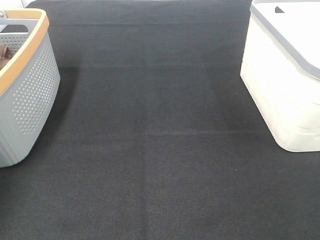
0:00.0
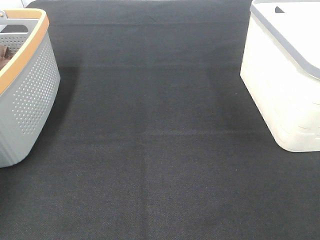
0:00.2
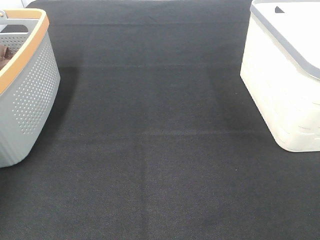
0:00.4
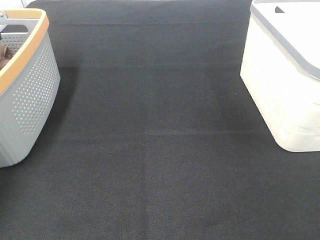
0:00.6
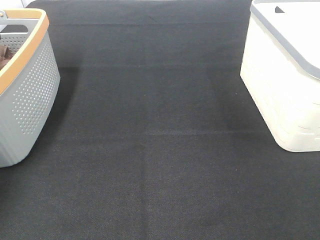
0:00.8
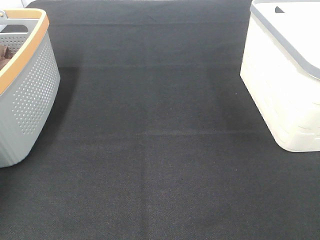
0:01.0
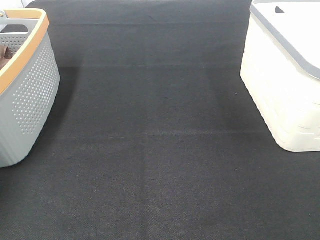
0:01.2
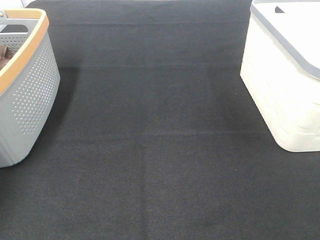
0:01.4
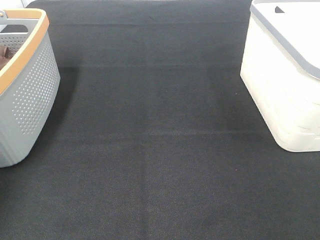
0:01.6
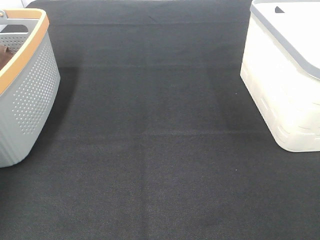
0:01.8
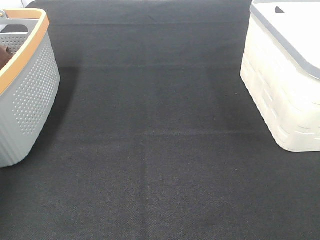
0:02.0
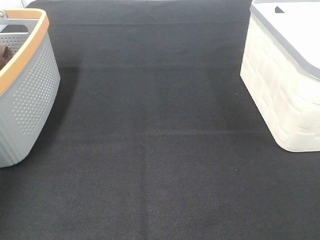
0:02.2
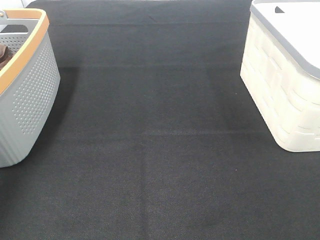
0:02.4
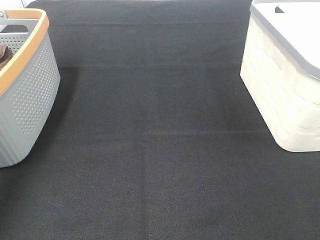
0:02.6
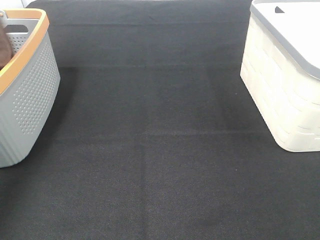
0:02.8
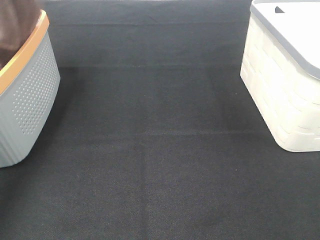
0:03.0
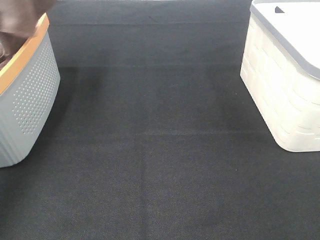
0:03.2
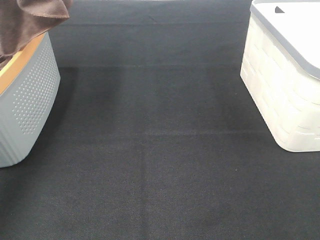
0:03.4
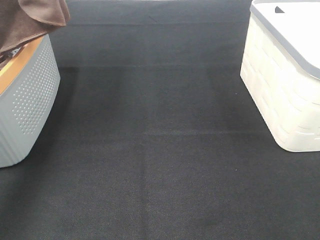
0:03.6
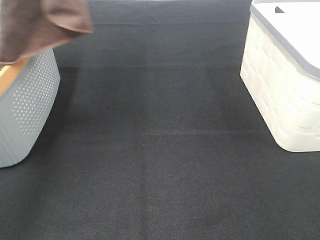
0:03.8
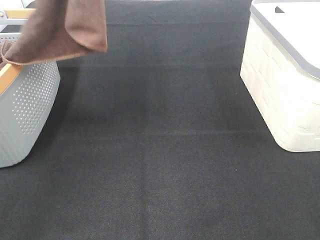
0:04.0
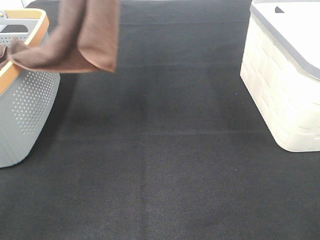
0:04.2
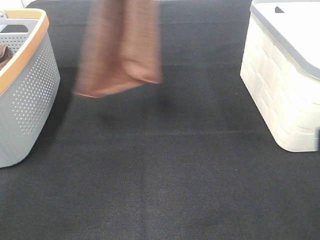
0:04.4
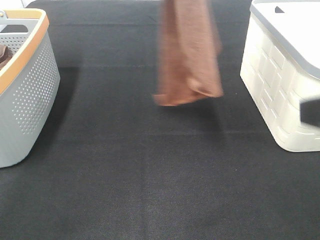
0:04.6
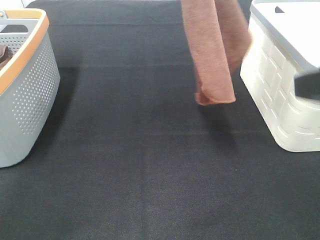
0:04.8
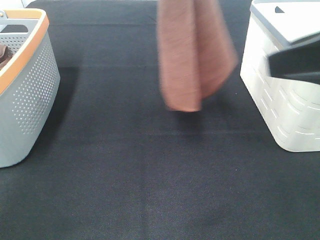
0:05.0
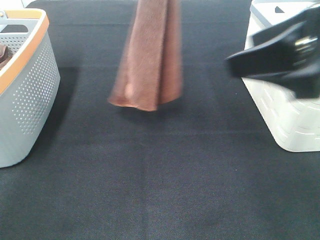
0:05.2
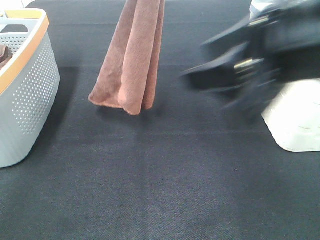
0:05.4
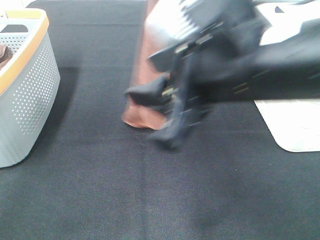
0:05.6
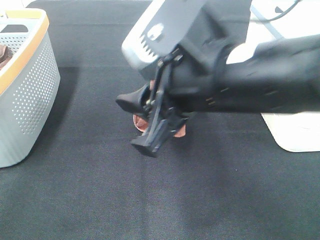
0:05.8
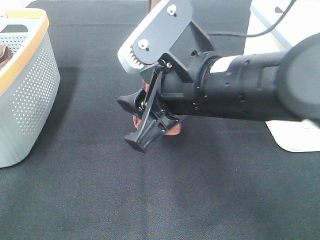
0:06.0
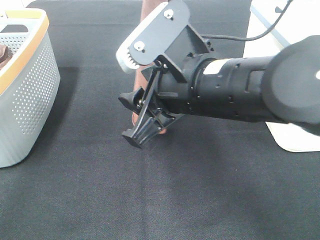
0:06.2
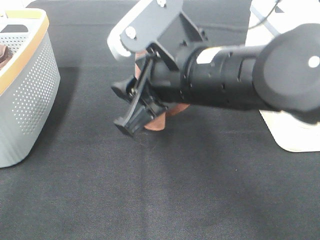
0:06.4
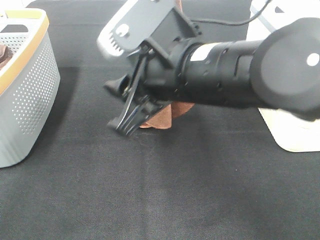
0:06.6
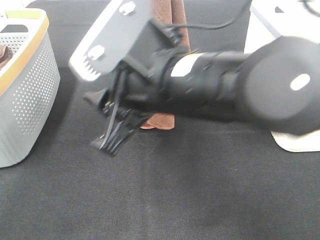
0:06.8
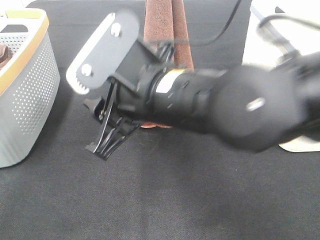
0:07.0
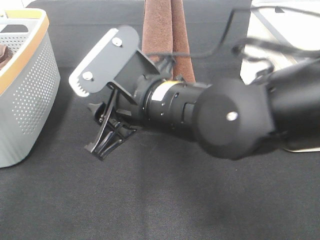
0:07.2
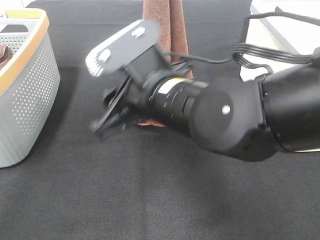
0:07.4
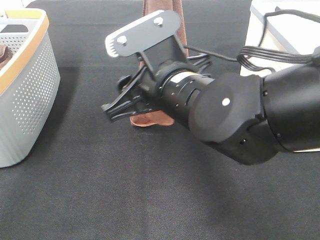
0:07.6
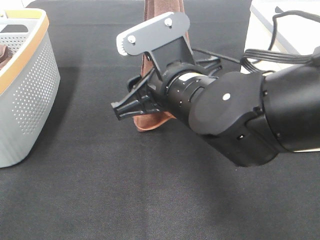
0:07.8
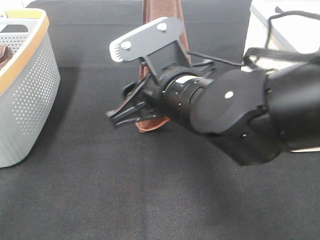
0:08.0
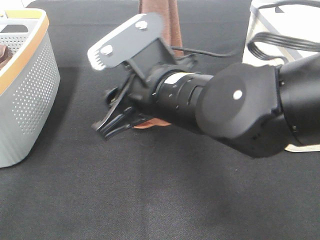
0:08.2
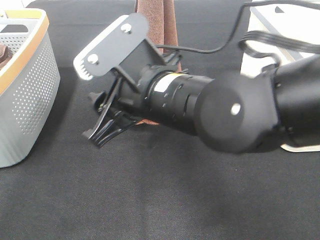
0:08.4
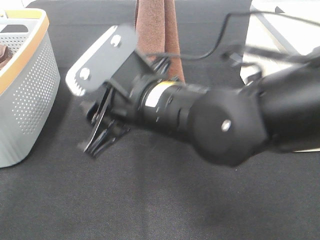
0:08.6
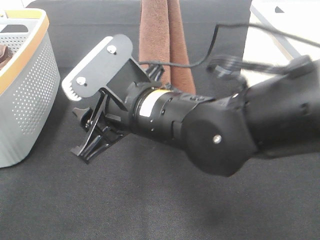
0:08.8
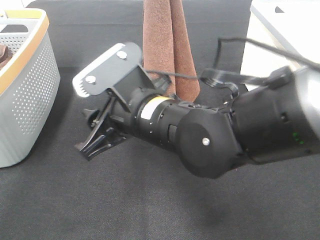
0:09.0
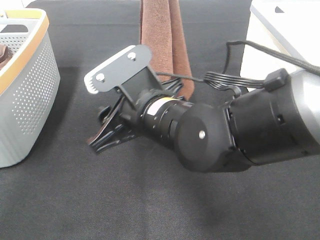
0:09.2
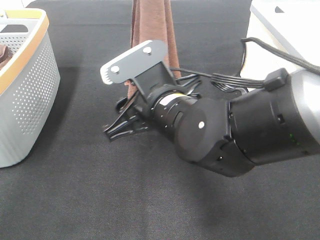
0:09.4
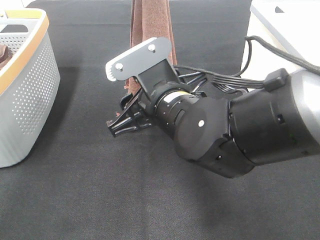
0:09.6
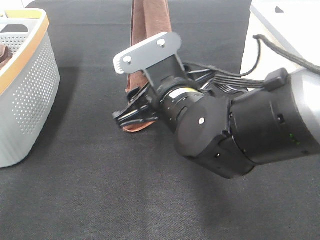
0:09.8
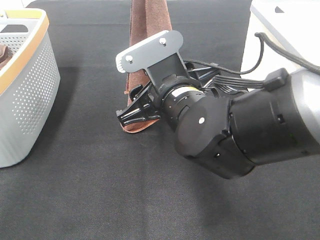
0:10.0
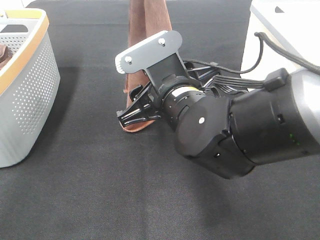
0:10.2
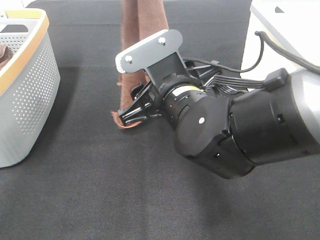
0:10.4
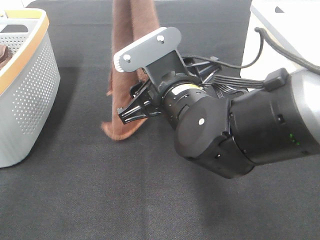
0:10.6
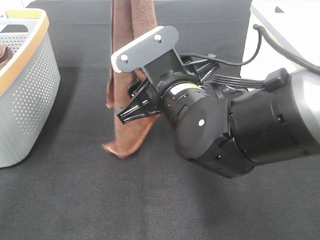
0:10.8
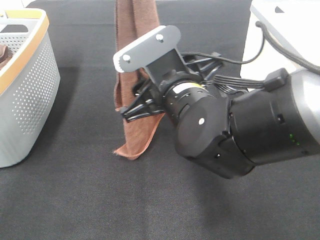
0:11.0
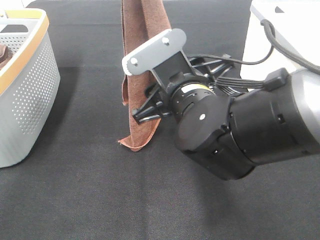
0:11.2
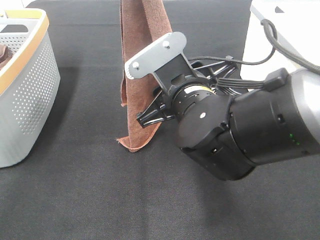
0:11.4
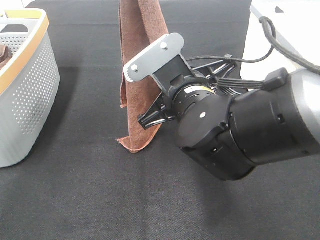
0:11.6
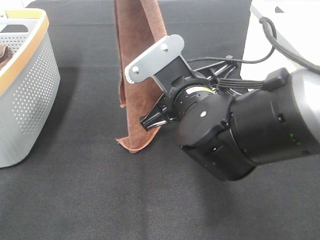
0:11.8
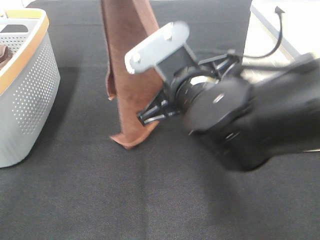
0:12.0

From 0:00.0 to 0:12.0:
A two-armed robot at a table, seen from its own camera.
Task of the whole recording: Remove the towel and place it.
From 0:01.6 to 0:03.0: The left gripper is displaced upward and backward by some 30 cm.
From 0:03.0 to 0:04.4: The right gripper travels forward by approximately 10 cm. Meanwhile the left gripper goes some 25 cm to the right.
From 0:04.4 to 0:06.0: The left gripper moves approximately 5 cm. Meanwhile the right gripper is displaced to the left and forward by some 20 cm.
From 0:10.4 to 0:12.0: The right gripper closes its fingers.

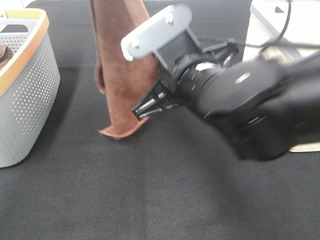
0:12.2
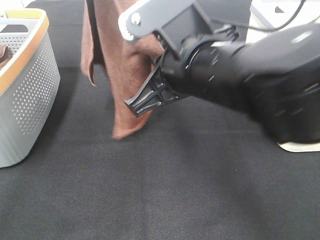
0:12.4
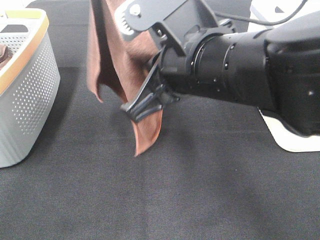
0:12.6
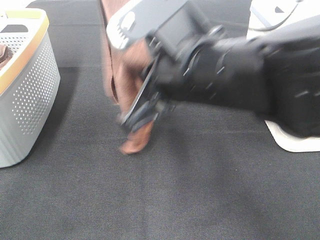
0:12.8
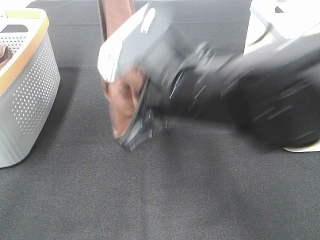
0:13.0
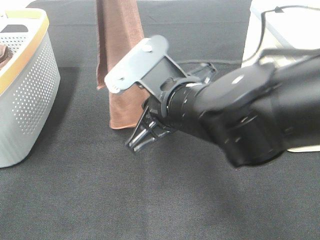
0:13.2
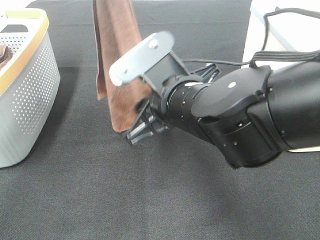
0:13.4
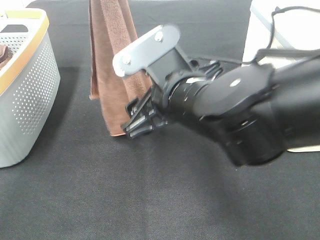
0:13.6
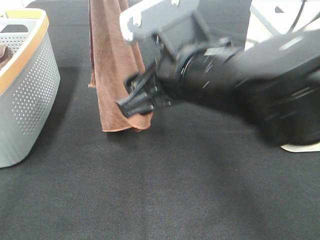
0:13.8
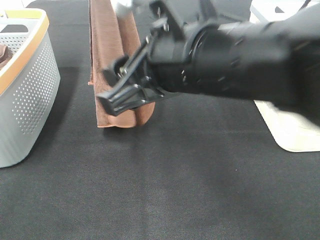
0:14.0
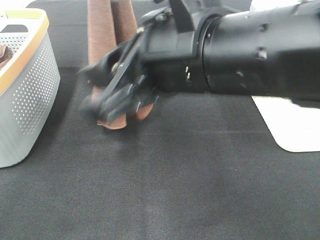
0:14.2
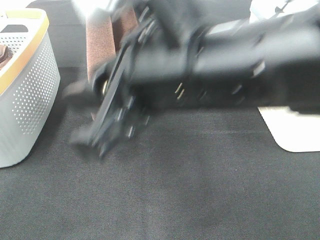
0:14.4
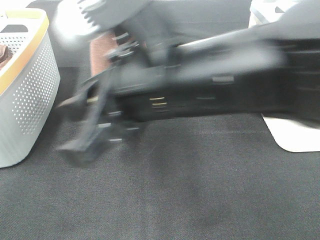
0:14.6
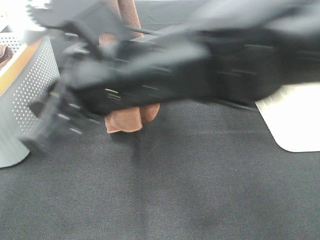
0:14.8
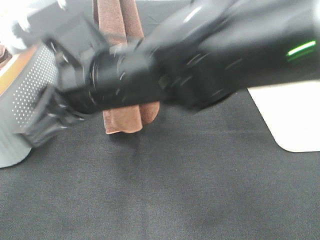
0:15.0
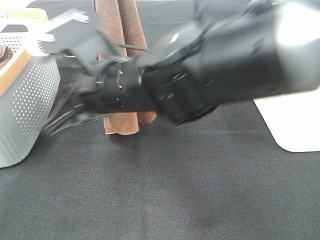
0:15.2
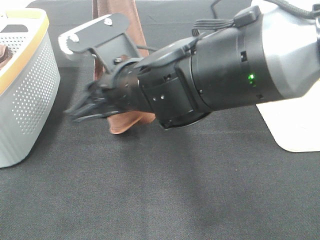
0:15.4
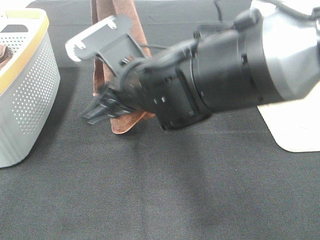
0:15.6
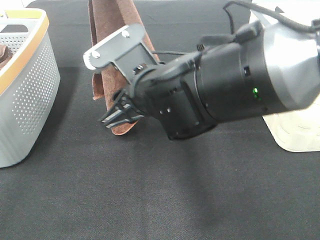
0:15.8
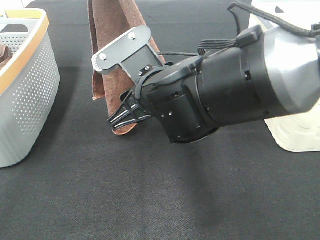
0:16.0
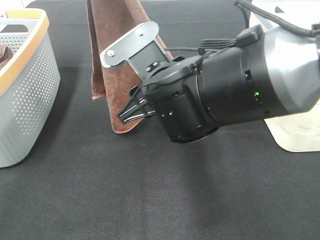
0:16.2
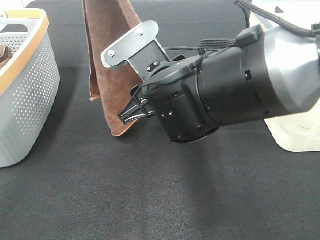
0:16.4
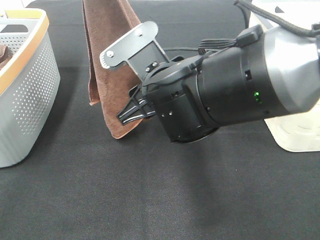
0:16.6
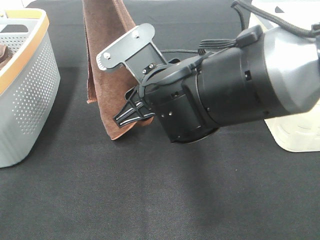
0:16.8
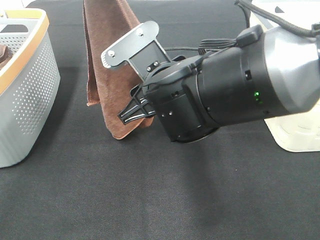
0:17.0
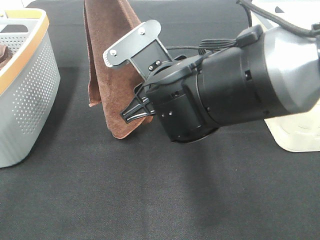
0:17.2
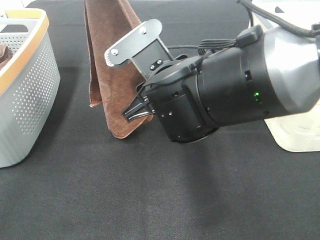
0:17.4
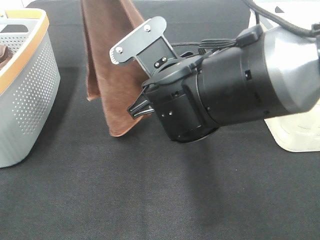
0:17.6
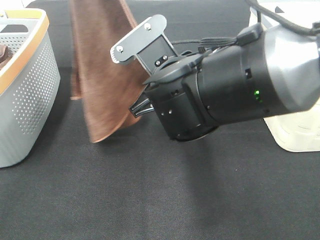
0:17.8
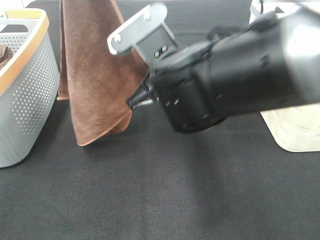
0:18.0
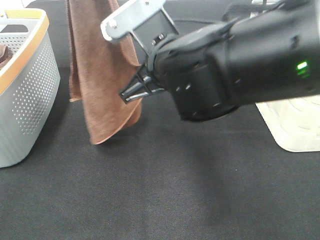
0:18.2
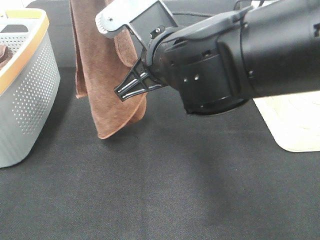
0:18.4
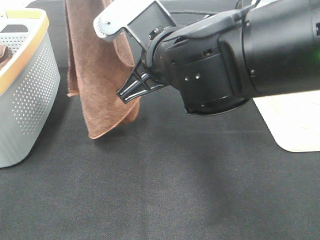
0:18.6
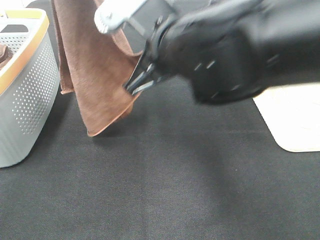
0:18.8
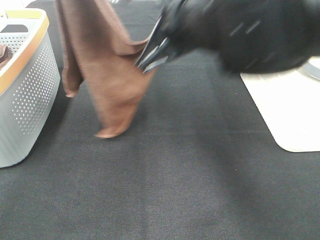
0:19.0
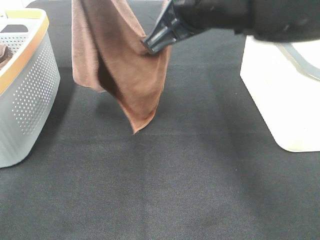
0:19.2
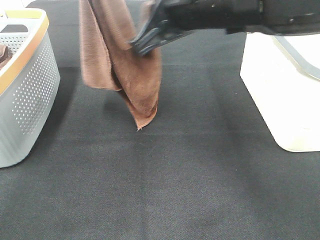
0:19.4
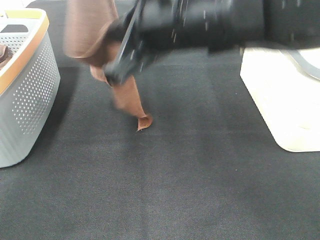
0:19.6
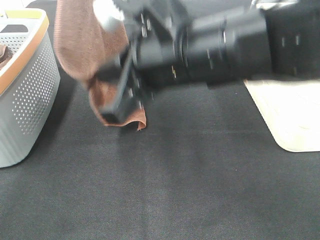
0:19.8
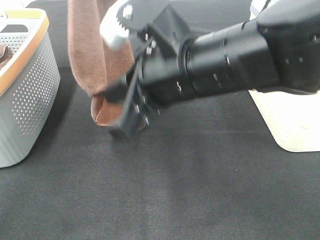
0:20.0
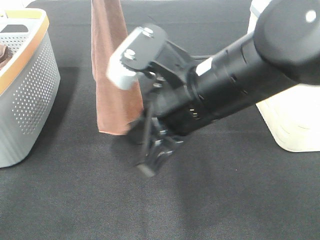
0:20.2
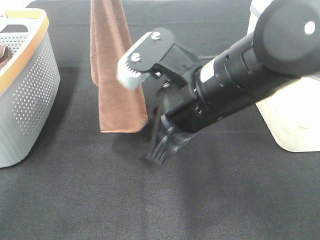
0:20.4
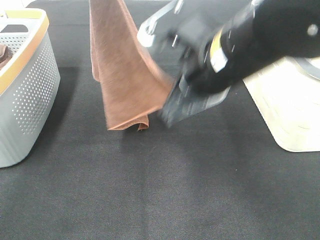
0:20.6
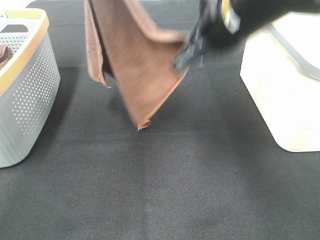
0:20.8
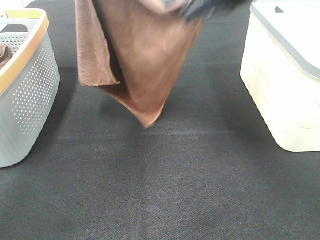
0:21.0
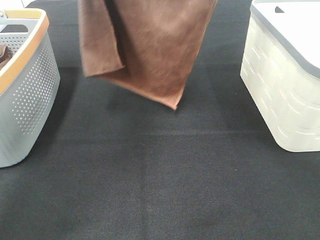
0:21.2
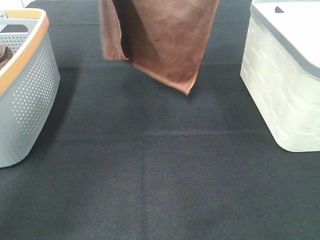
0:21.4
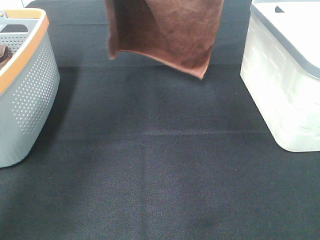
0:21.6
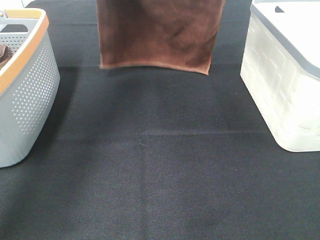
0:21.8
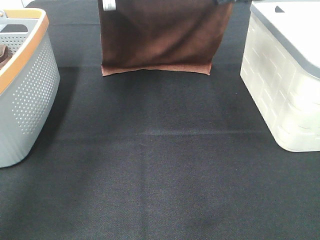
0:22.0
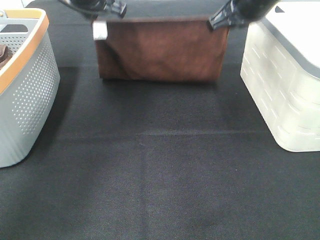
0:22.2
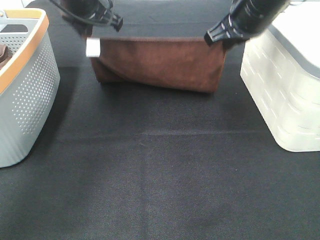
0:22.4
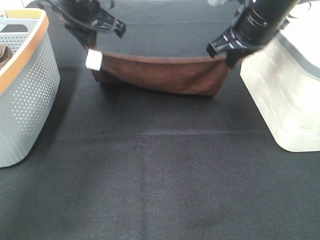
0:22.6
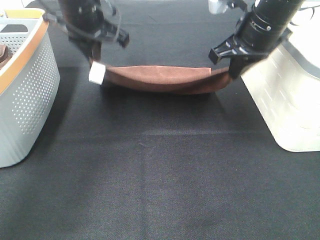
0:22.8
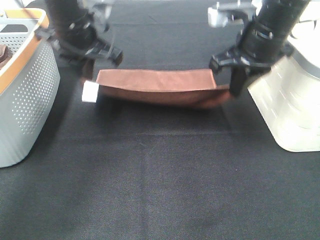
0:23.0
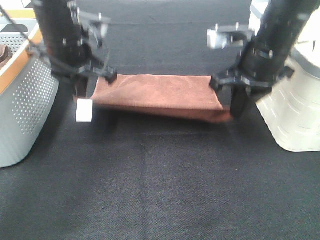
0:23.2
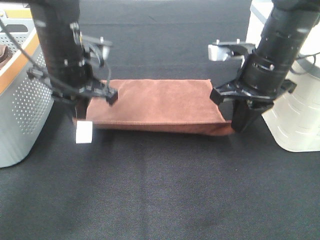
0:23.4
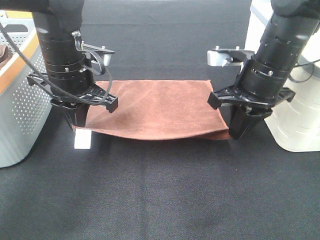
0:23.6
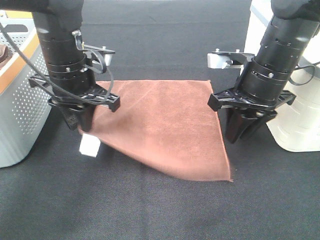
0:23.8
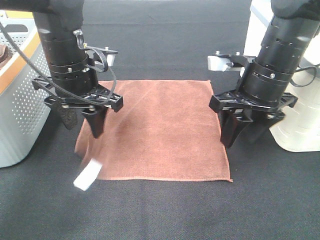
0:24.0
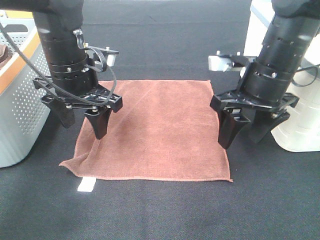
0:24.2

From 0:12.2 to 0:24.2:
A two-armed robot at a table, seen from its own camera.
Task of the whole recording: Remove the towel and place it.
Step, from 0:12.2 to 0:16.0: Right hand: grab a corner of the brown towel and straighten it.
Step, from 0:16.2 to 0:17.8: Left hand: spread the brown towel flat on the table.
Step, from 0:16.2 to 0:17.8: Right hand: spread the brown towel flat on the table.
From 0:12.2 to 0:13.8: The right gripper opens its fingers.
From 0:13.8 to 0:15.2: The right gripper is displaced to the left by some 10 cm.
From 0:15.2 to 0:16.6: The right gripper moves approximately 5 cm.
From 0:16.6 to 0:18.2: The right gripper closes.
From 0:18.2 to 0:19.8: The left gripper heads forward, covering some 5 cm.
From 0:19.8 to 0:21.2: The left gripper travels forward by some 5 cm. Meanwhile the right gripper heads forward, upward and to the right, covering roughly 20 cm.
From 0:21.2 to 0:22.6: The left gripper is displaced downward by about 20 cm; the right gripper moves downward, approximately 10 cm.
From 0:22.6 to 0:24.2: The left gripper shifts roughly 10 cm backward and downward, and opens its fingers. Meanwhile the right gripper is displaced backward by roughly 5 cm, and opens up.
